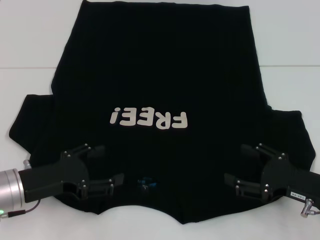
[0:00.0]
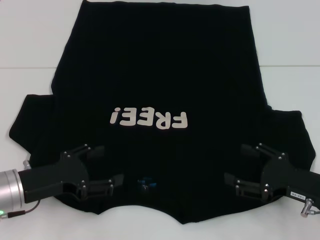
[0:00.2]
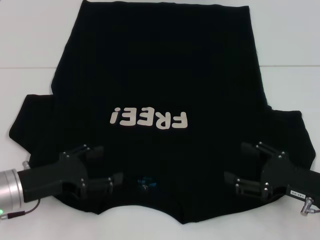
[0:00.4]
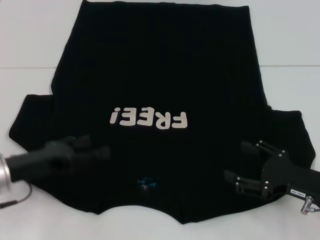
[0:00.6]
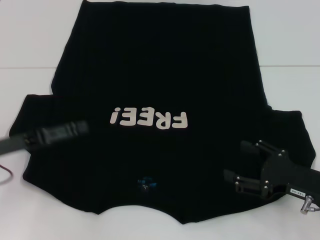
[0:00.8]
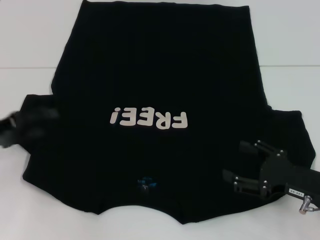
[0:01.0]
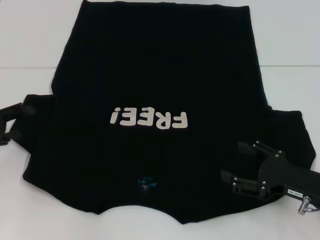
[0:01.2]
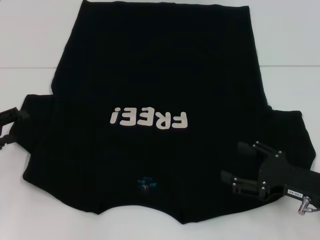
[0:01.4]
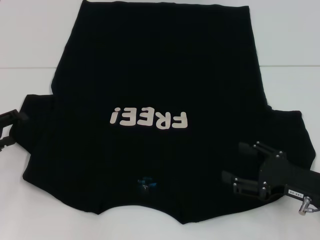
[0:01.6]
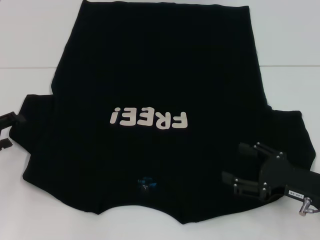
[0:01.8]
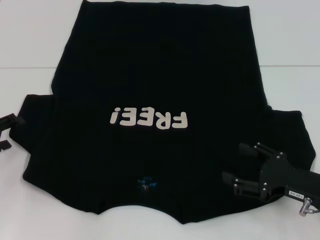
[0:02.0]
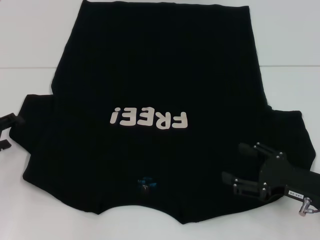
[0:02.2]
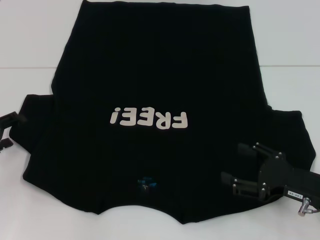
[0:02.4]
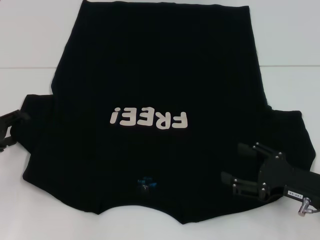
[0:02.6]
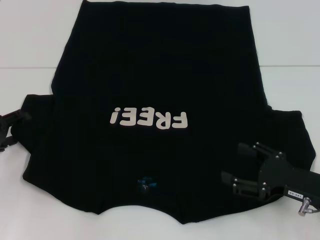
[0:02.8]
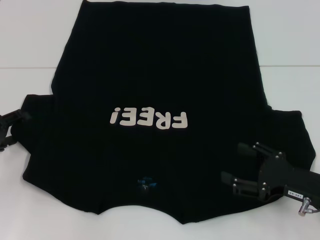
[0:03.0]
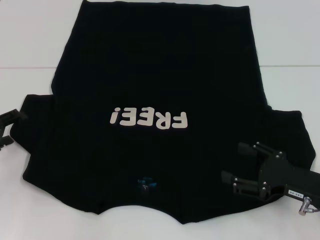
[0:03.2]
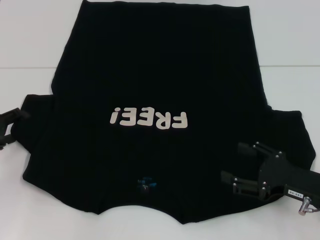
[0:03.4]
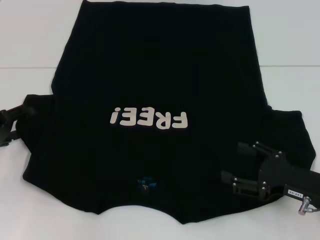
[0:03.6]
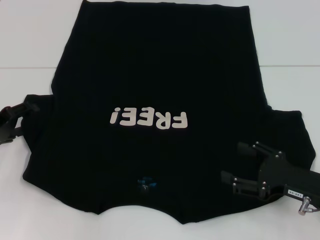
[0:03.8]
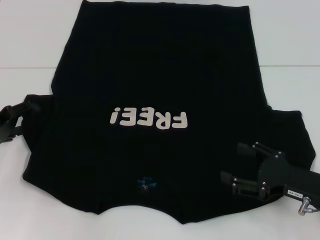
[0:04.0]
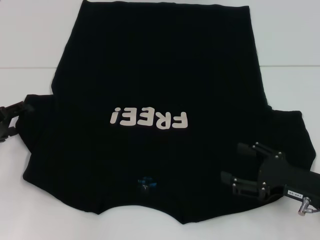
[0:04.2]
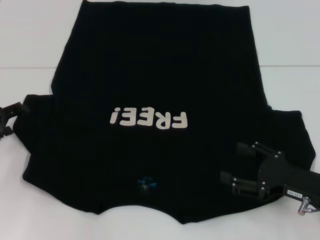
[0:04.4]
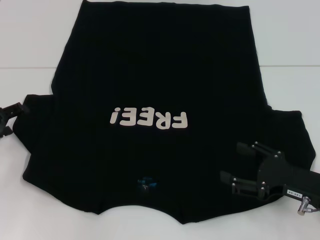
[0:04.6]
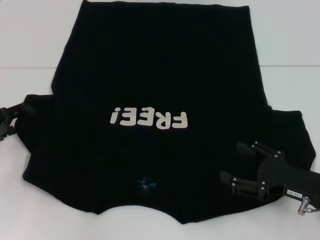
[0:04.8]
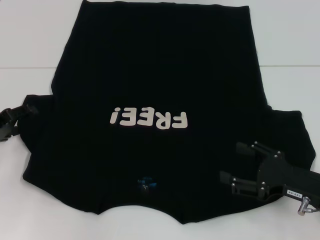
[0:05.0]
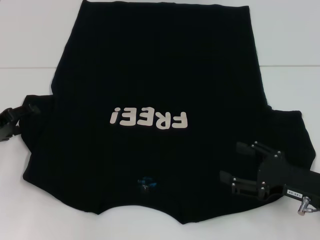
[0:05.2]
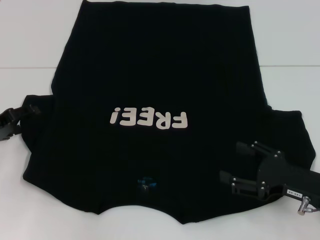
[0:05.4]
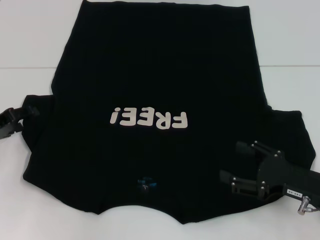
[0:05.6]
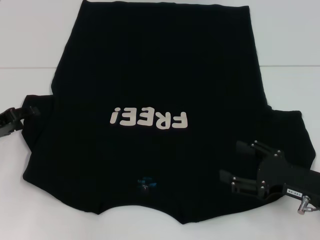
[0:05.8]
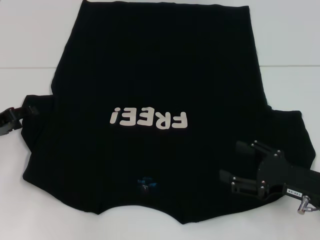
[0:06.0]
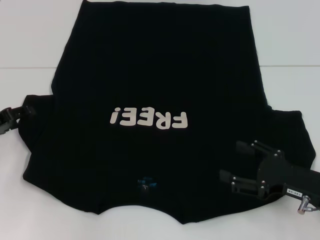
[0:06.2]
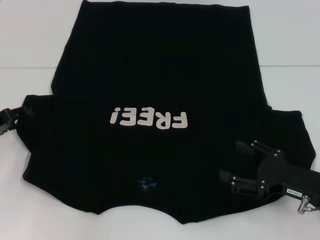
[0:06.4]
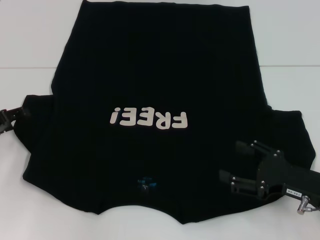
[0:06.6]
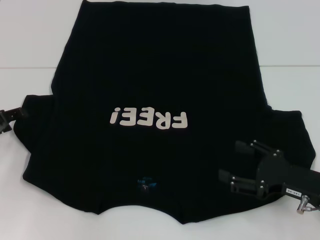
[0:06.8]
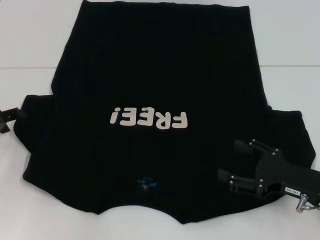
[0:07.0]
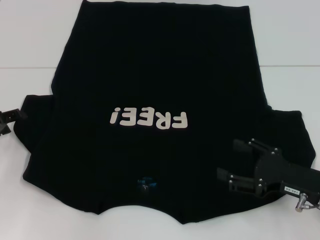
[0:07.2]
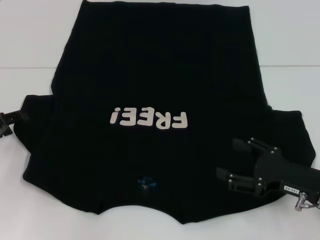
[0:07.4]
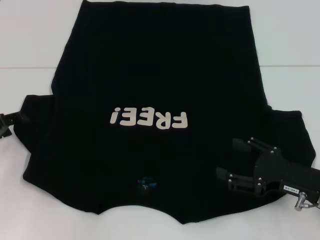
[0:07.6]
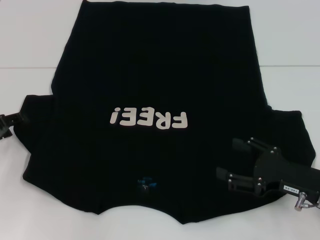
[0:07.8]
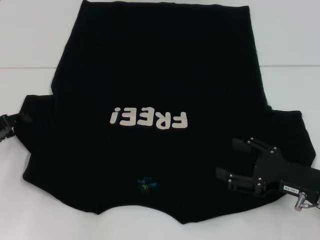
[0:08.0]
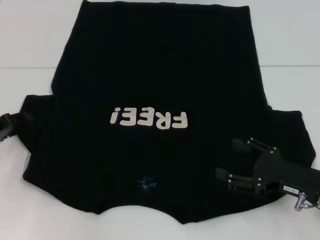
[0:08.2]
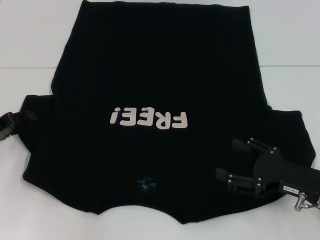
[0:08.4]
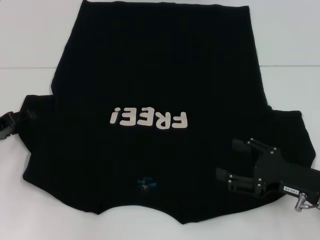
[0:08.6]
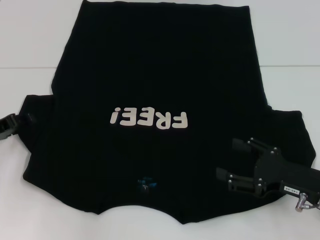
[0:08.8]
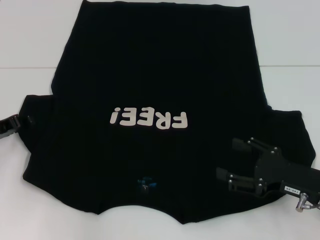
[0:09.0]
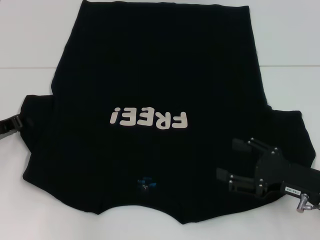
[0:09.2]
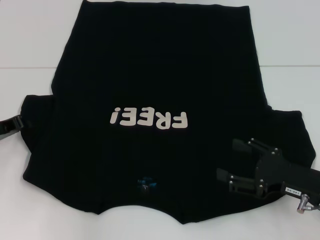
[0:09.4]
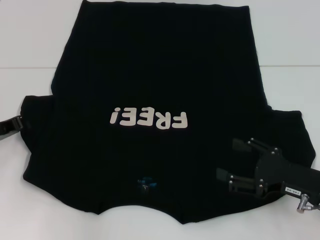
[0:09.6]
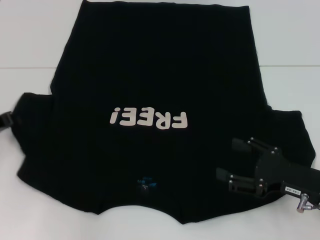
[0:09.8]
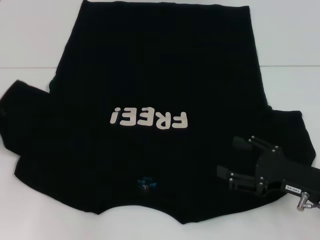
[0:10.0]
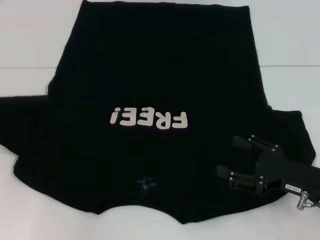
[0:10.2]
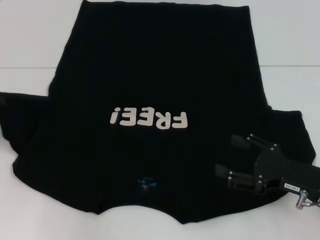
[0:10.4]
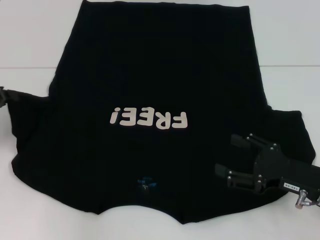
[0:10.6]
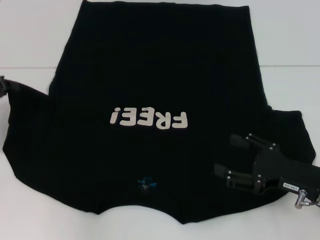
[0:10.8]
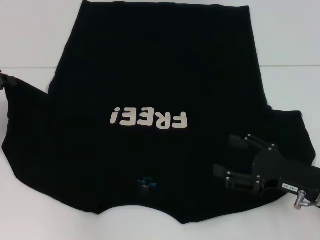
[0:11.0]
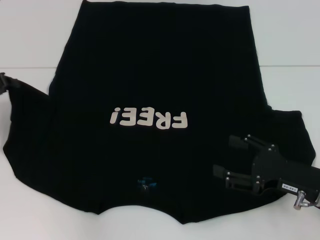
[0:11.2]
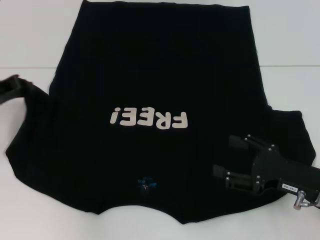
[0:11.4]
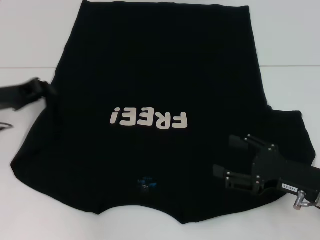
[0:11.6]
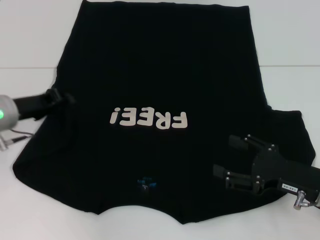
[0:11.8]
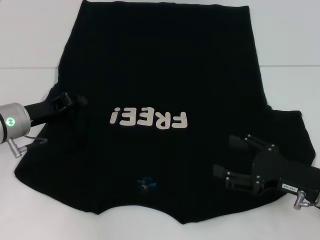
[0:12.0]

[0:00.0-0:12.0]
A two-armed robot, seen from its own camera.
0:00.0 to 0:01.6: The left gripper travels to the left by roughly 10 cm.
0:03.0 to 0:07.6: The grippers move only a little.
0:09.0 to 0:10.4: The left gripper moves some 5 cm, and closes.
0:10.4 to 0:12.0: The left gripper is displaced to the right by roughly 10 cm.

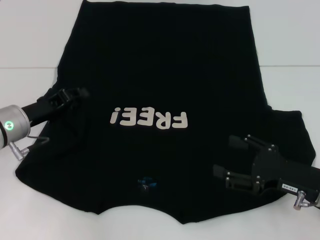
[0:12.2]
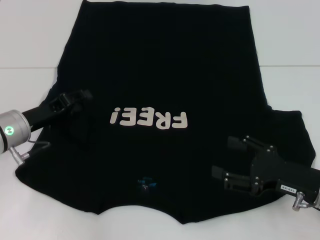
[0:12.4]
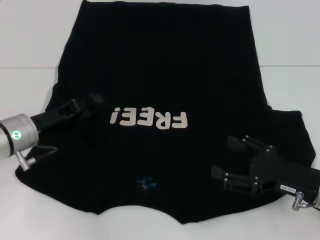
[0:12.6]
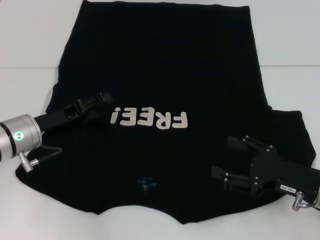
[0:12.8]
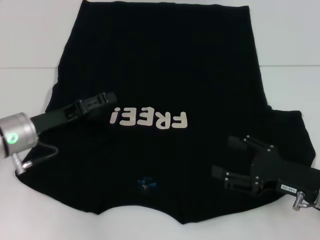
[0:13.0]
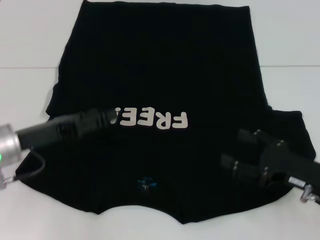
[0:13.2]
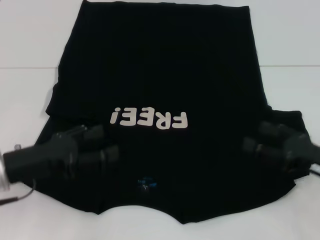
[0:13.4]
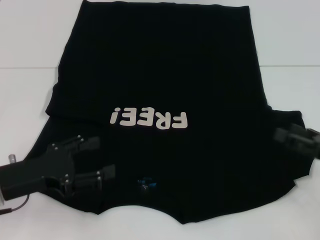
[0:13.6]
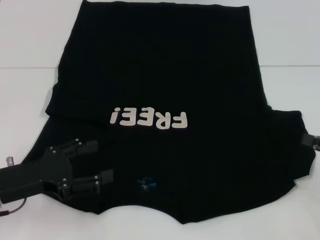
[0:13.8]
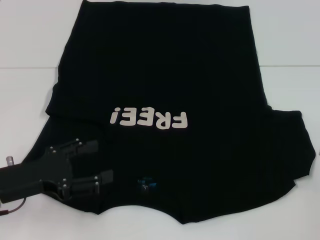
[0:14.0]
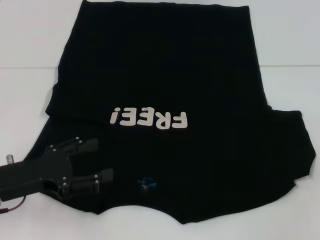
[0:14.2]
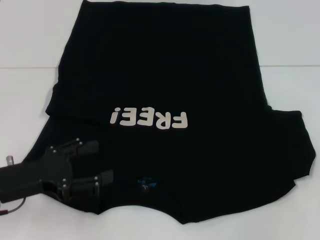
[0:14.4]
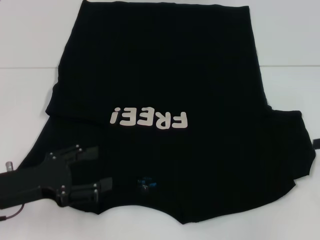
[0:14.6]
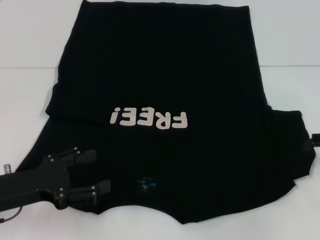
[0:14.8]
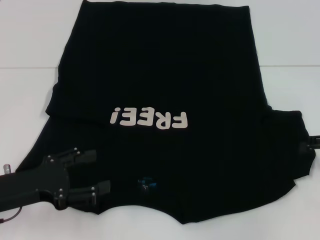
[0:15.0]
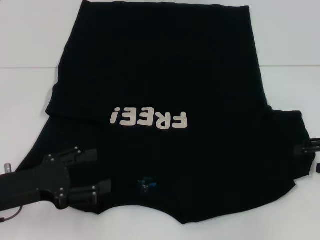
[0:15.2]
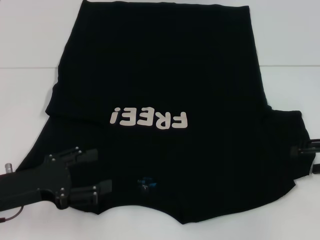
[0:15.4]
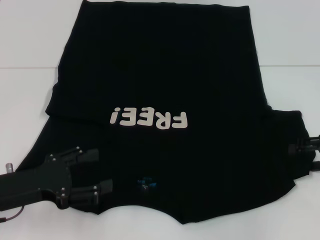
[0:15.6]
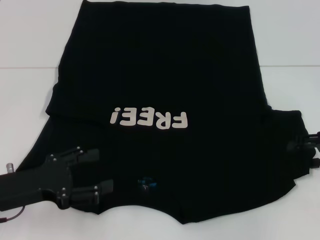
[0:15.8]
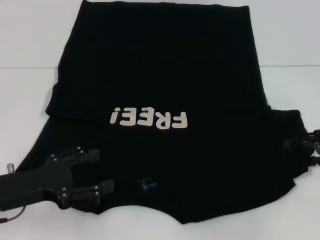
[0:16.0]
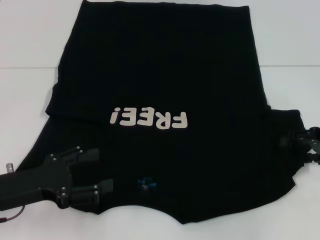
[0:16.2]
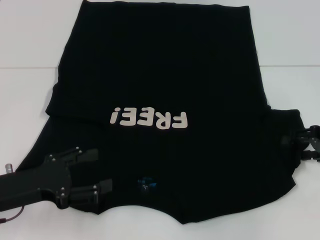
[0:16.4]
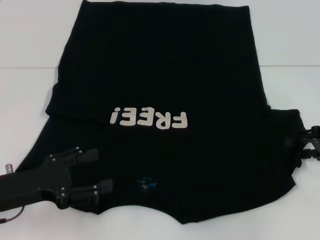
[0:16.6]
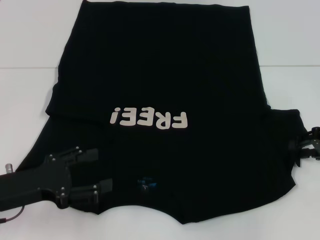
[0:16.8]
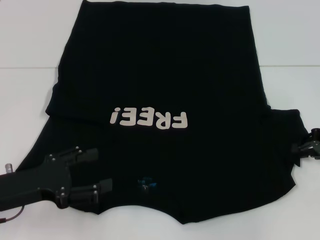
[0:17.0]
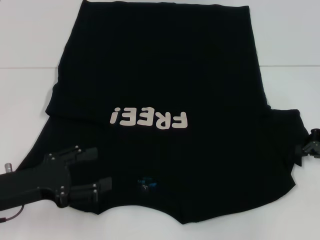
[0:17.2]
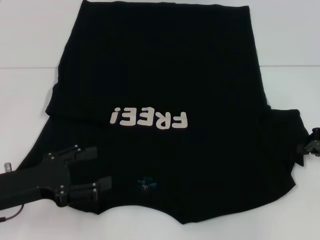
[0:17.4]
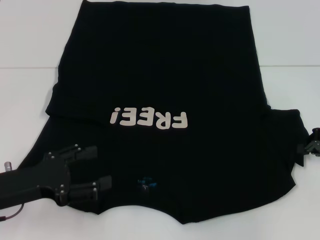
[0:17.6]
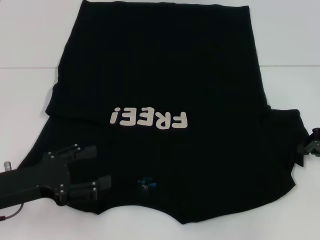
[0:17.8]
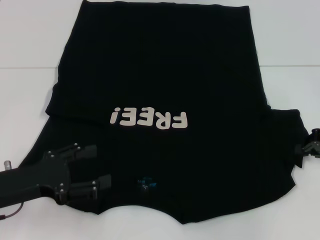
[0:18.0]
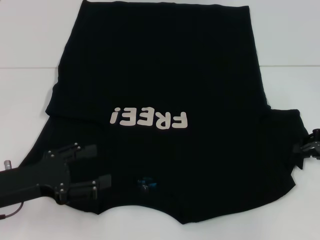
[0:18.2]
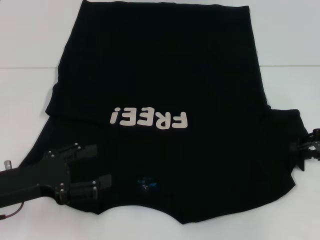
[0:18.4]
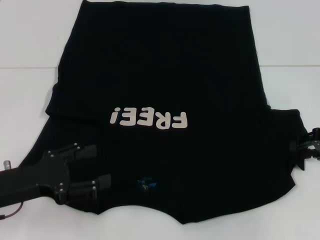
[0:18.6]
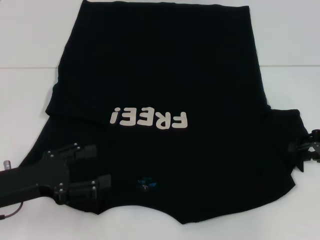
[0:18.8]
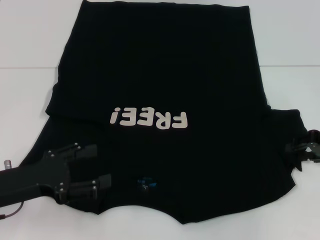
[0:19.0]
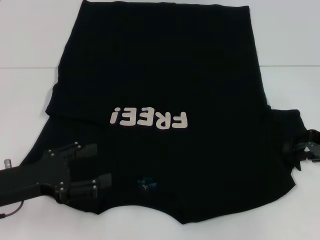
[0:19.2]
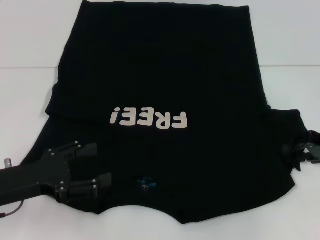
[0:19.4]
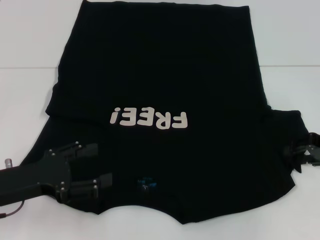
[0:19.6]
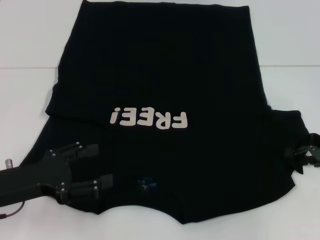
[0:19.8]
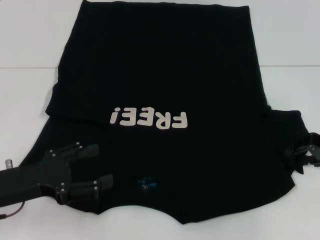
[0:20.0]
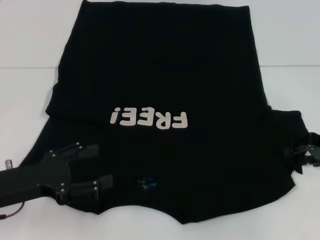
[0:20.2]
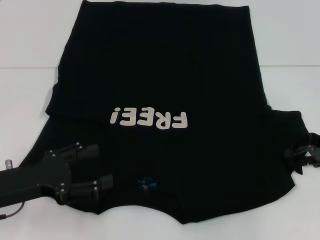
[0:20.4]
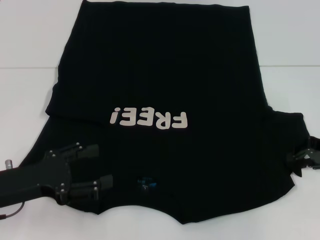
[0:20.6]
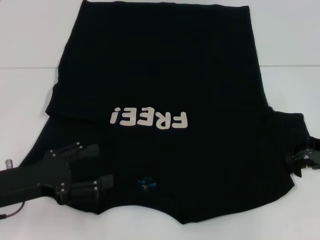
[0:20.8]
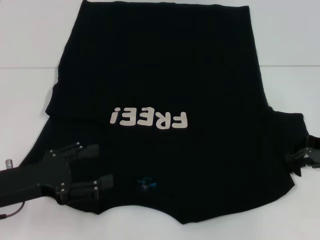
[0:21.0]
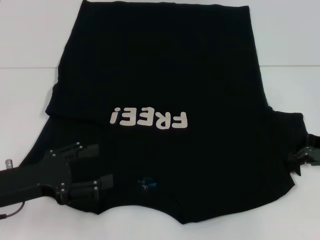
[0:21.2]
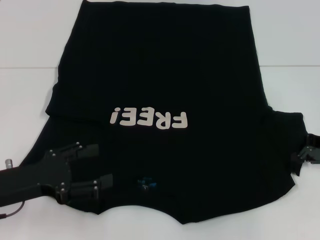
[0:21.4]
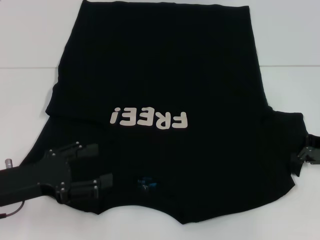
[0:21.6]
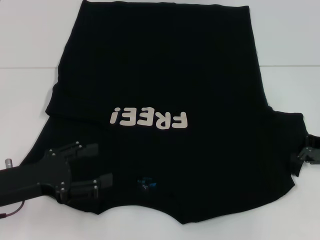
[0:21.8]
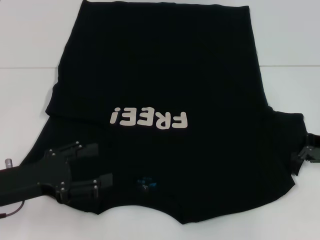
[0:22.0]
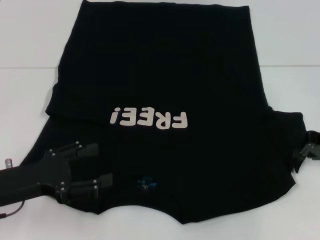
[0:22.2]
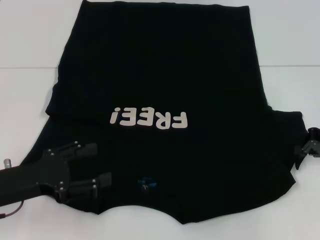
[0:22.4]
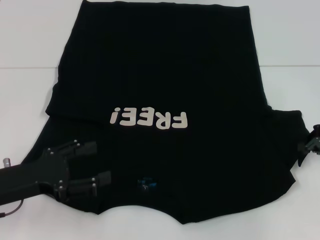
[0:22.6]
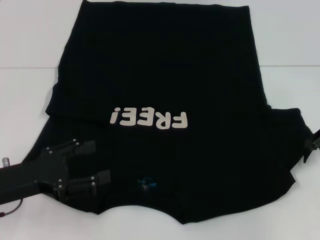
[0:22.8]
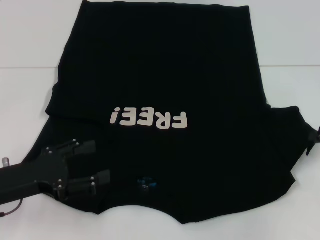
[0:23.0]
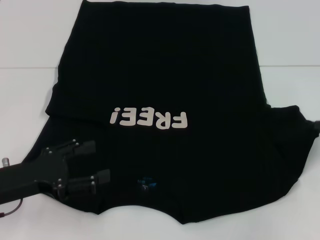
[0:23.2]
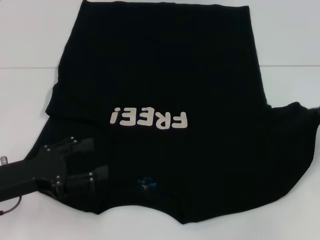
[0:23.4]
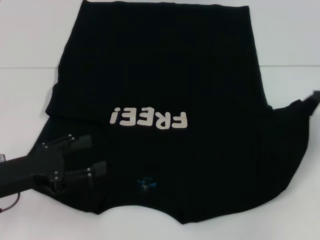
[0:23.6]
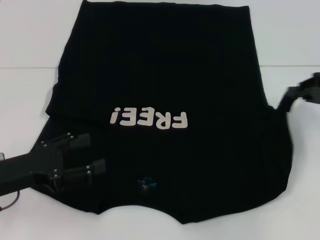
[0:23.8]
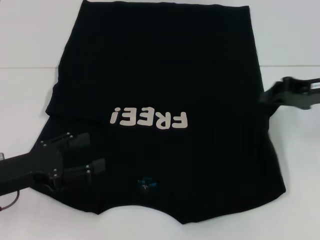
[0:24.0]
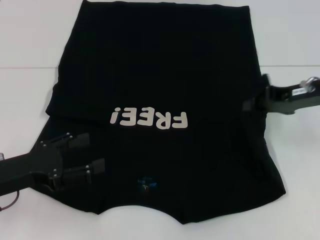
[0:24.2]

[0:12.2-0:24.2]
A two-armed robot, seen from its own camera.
0:12.2 to 0:13.8: The left gripper goes about 10 cm backward, and opens its fingers. The right gripper is displaced to the right by approximately 10 cm.
0:15.2 to 0:16.6: The grippers make only small movements.
0:18.2 to 0:19.8: The right gripper opens up.
0:19.8 to 0:21.2: Neither gripper changes place.
0:21.2 to 0:22.6: There are only small adjustments of the grippers.
0:22.6 to 0:24.2: The right gripper is displaced to the left by approximately 10 cm.
